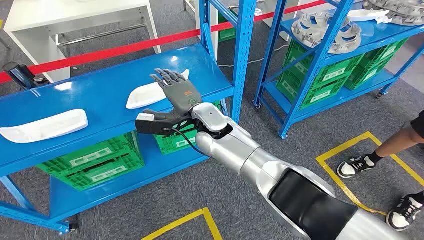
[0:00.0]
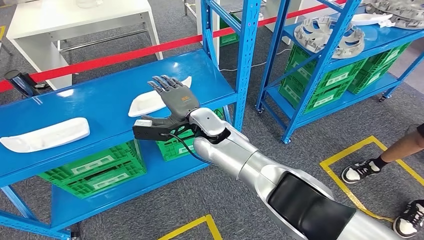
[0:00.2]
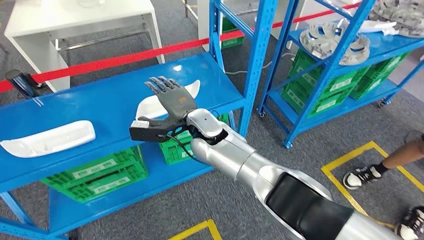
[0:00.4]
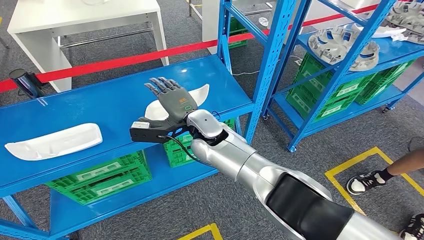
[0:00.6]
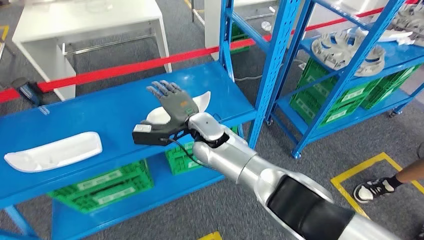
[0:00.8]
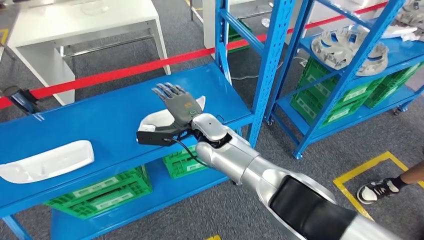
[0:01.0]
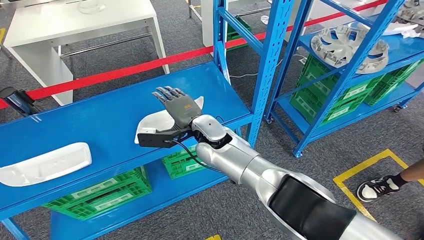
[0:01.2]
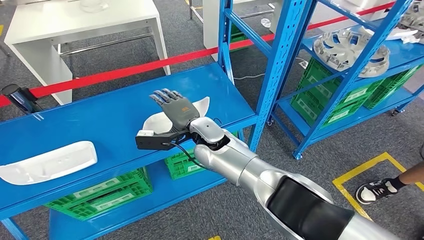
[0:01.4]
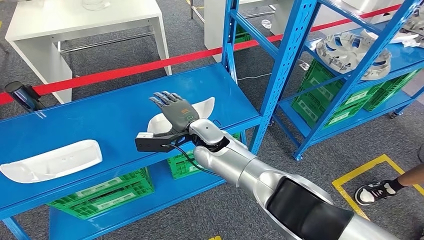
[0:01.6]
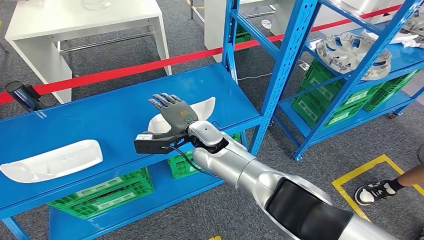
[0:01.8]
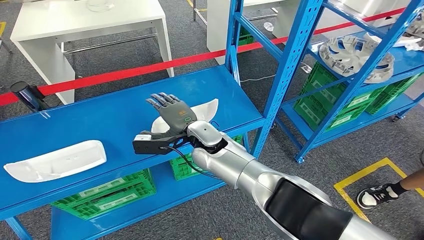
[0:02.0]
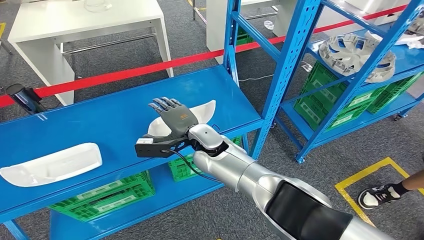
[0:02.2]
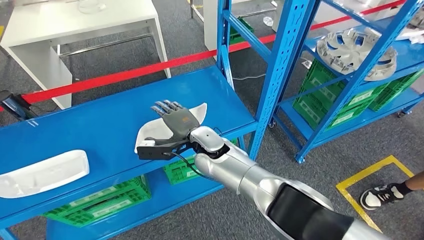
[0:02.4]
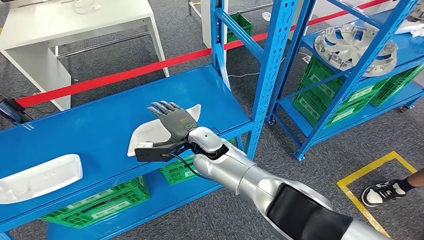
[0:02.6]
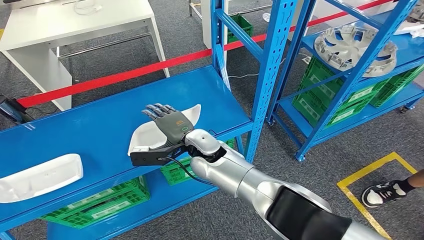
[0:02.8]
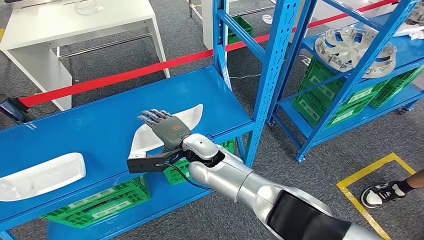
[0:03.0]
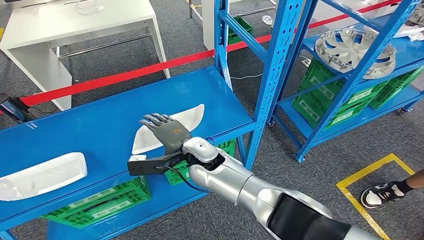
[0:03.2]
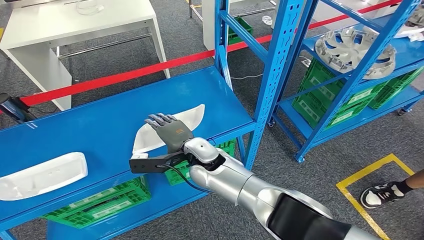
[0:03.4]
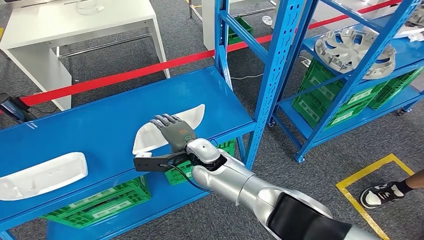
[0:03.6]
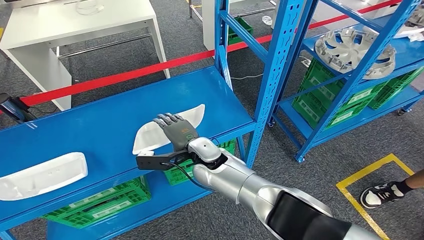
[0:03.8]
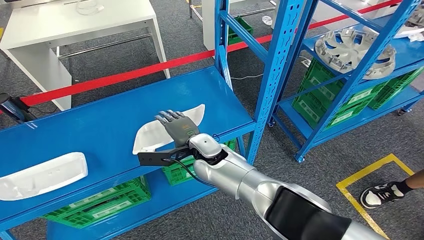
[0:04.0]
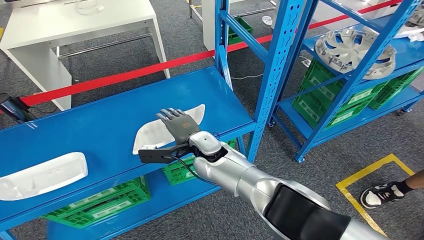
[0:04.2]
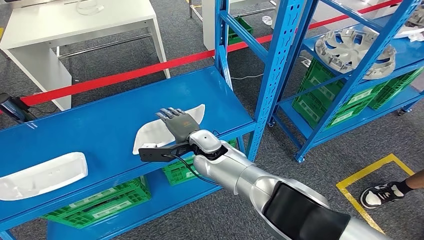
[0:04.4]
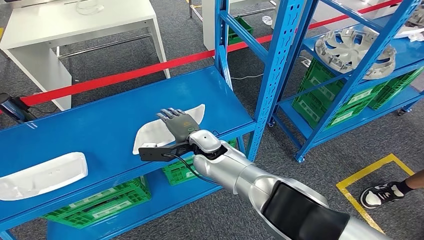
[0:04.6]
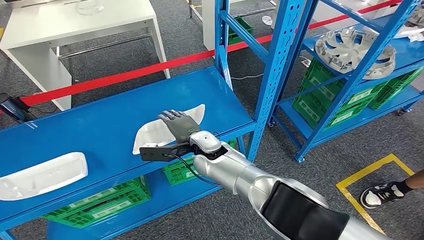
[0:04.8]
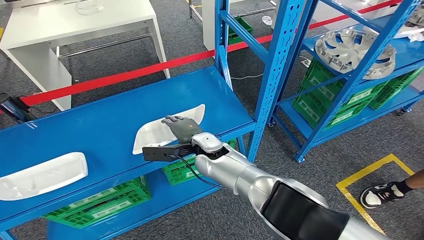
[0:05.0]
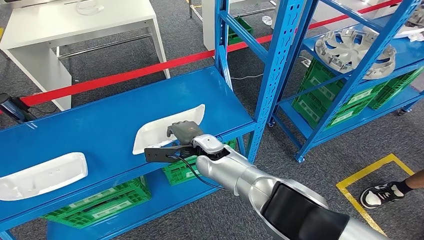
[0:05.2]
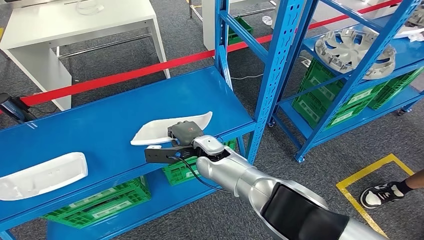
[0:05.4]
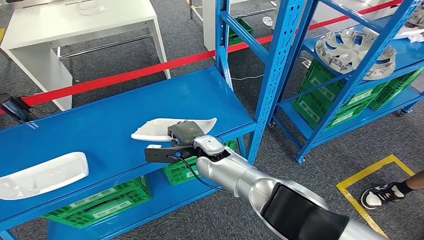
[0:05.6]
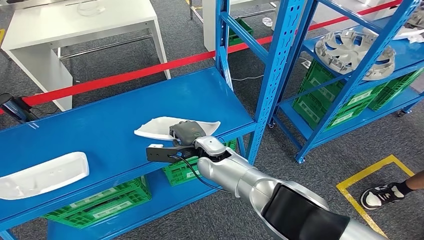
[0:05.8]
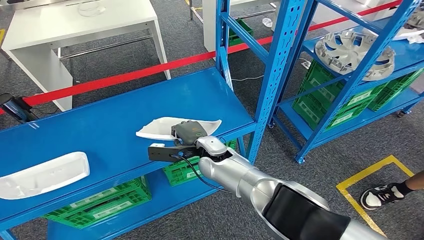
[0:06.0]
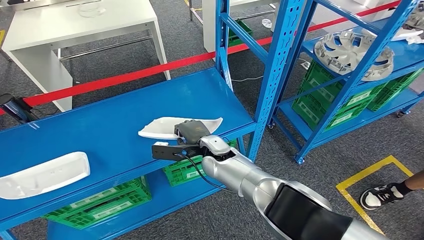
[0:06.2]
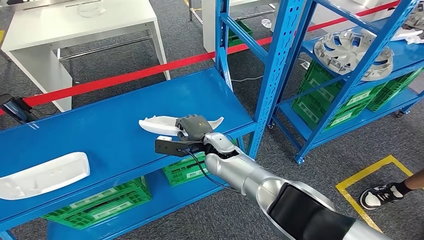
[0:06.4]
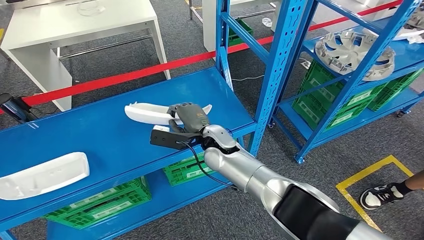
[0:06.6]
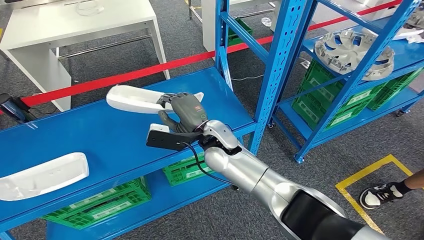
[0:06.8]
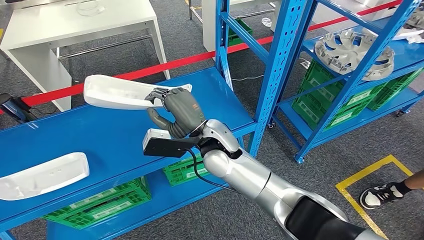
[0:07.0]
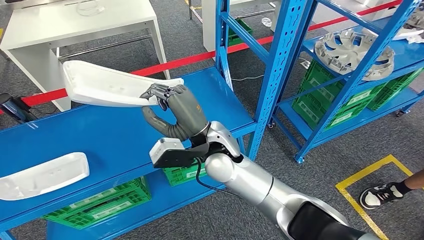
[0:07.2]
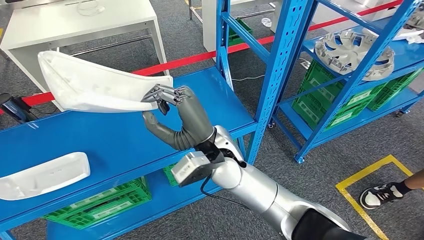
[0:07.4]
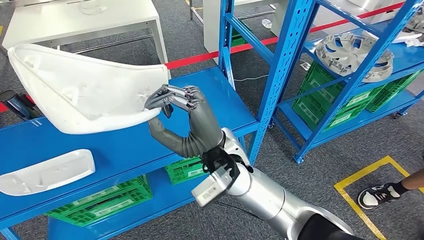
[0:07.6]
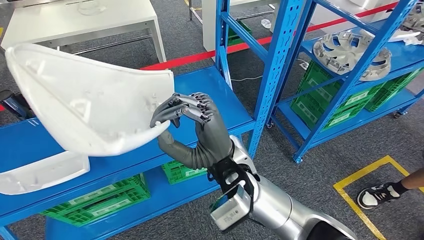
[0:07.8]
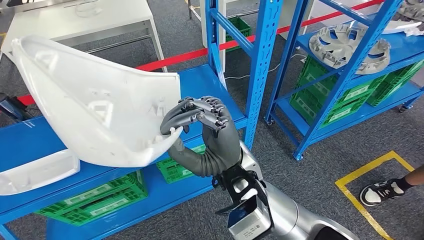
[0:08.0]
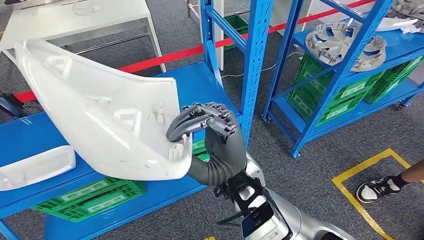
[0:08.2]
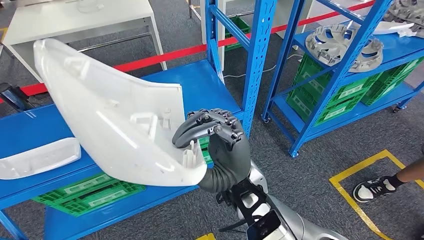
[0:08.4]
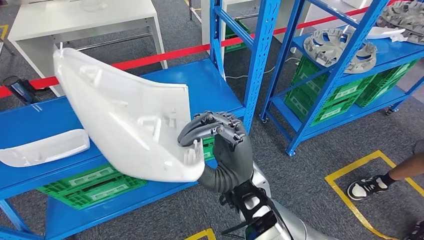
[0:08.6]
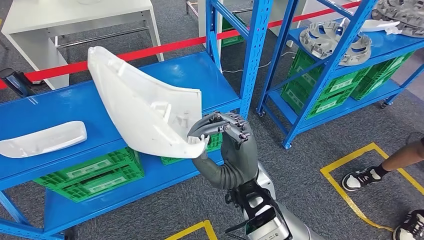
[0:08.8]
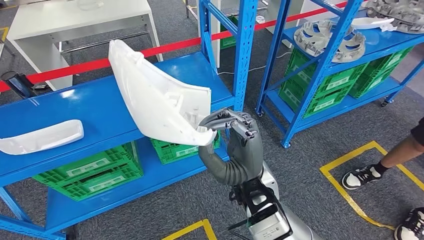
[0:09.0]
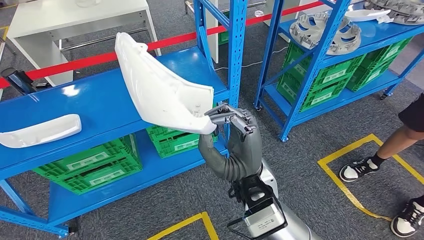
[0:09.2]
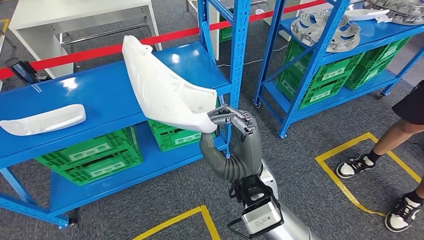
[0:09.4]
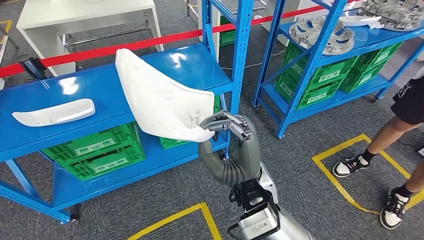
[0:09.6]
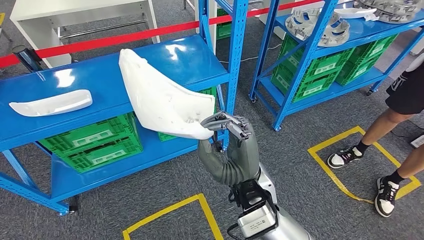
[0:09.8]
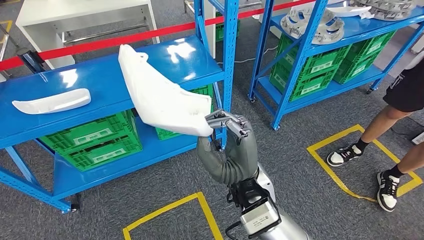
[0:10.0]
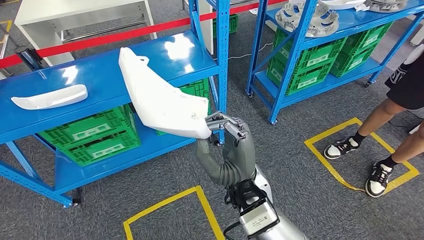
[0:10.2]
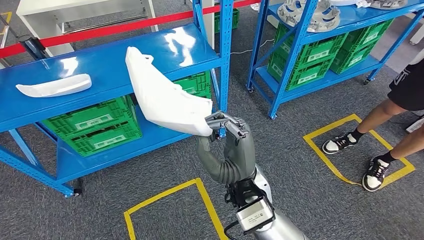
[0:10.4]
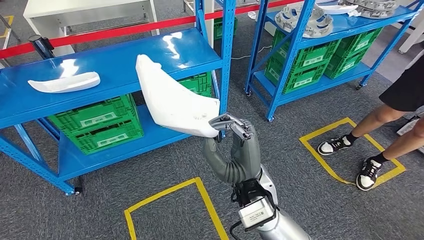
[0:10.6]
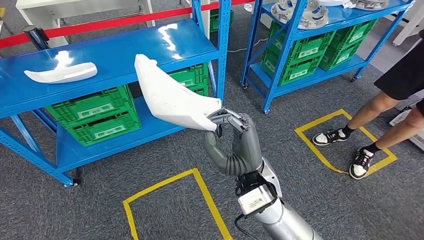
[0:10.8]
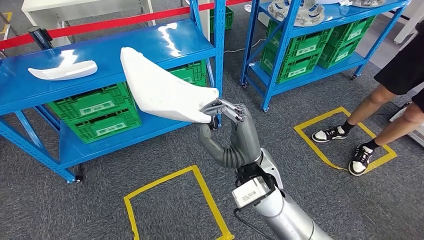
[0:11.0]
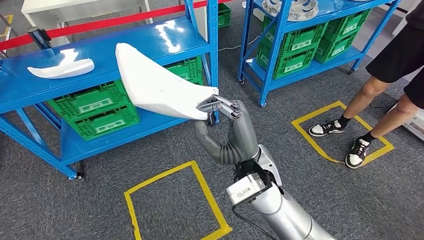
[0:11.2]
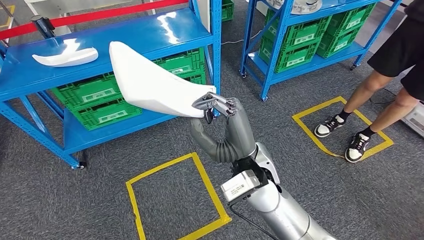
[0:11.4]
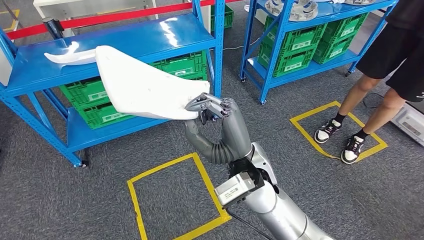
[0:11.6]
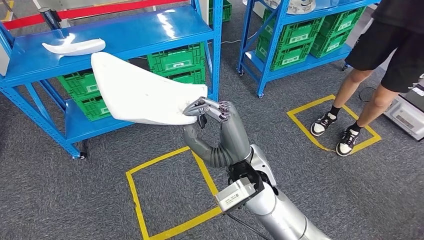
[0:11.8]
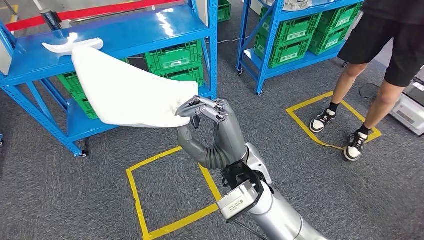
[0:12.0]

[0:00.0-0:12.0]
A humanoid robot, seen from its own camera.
Step, 0:00.0 to 0:07.6: Pick up the small component from the shelf.
0:03.0 to 0:06.0: The hands stay close to where they were, moving slightly.

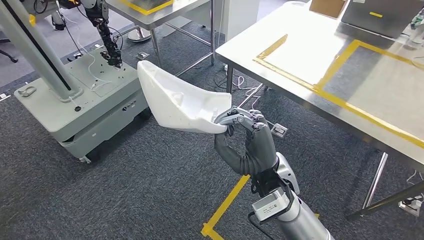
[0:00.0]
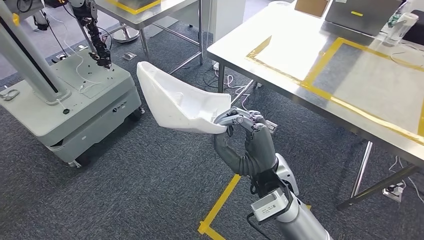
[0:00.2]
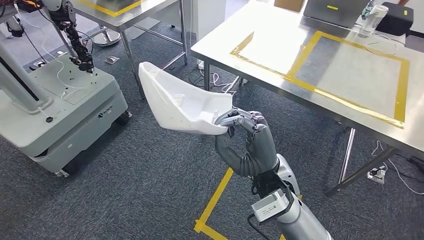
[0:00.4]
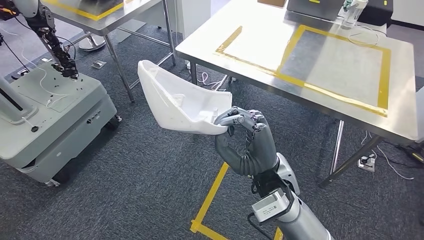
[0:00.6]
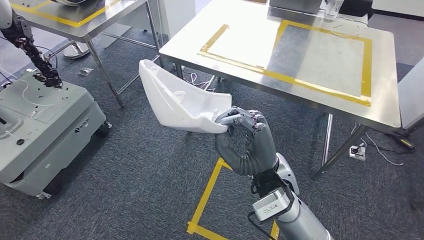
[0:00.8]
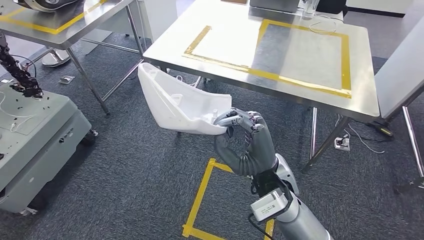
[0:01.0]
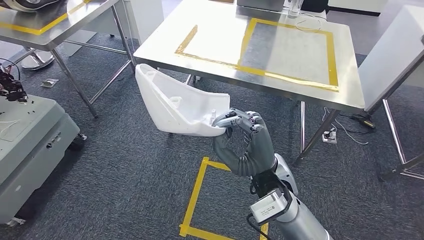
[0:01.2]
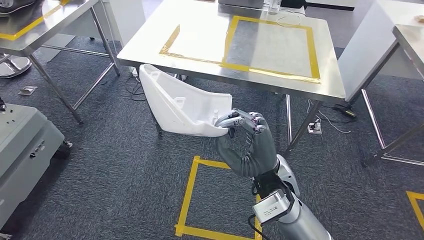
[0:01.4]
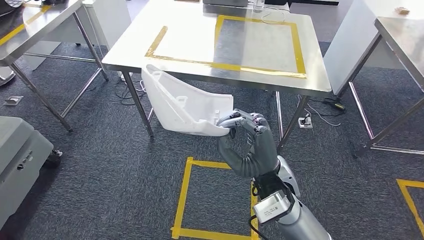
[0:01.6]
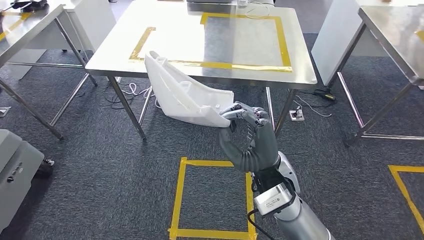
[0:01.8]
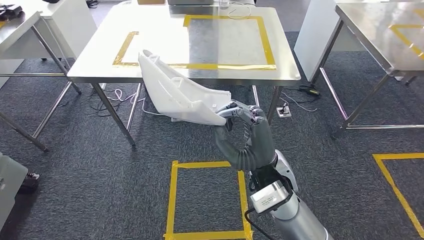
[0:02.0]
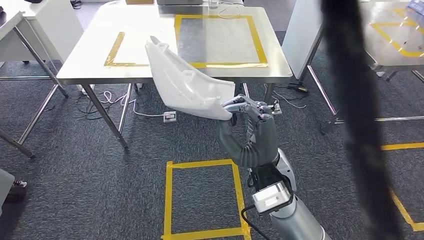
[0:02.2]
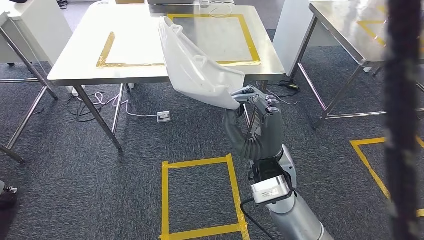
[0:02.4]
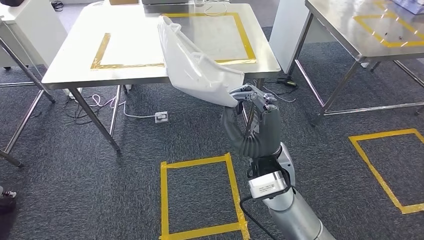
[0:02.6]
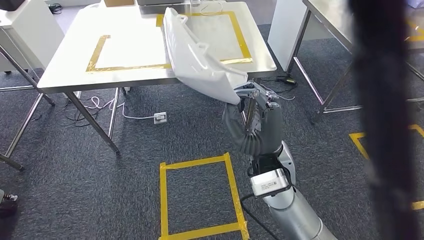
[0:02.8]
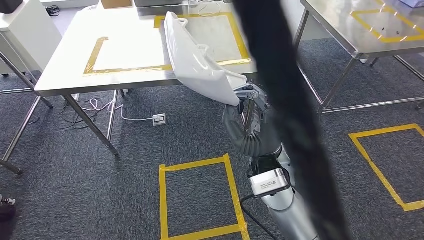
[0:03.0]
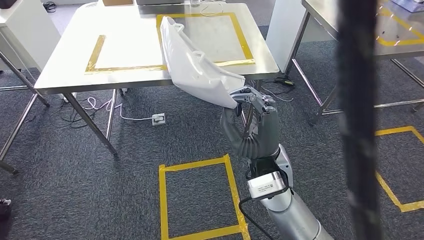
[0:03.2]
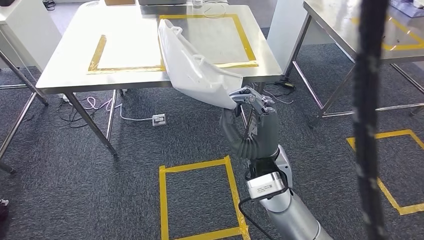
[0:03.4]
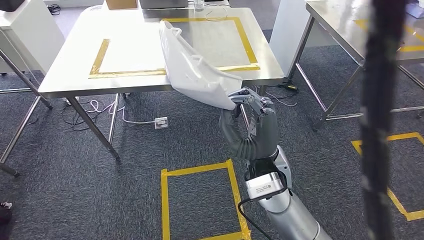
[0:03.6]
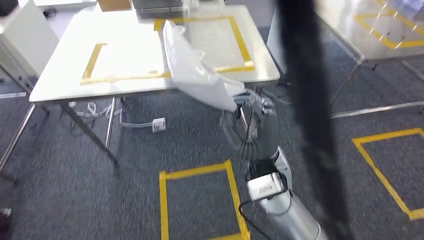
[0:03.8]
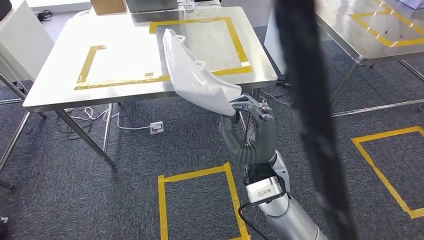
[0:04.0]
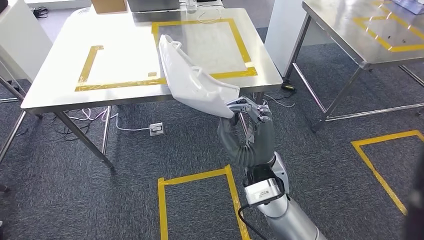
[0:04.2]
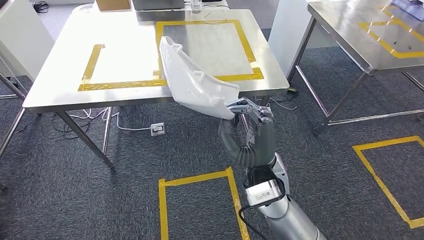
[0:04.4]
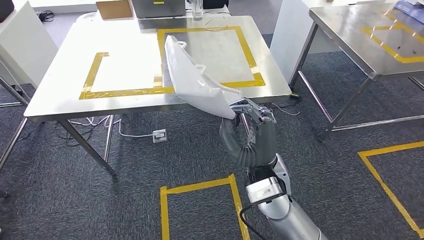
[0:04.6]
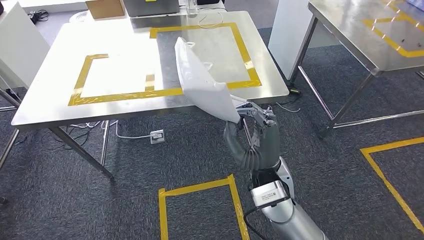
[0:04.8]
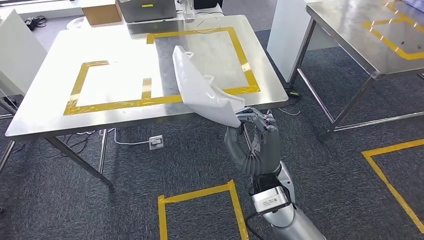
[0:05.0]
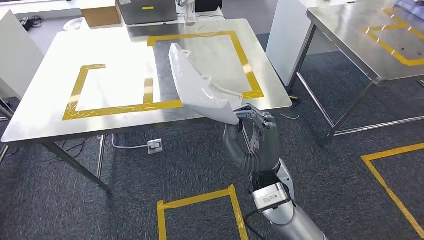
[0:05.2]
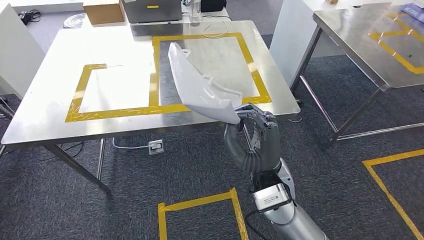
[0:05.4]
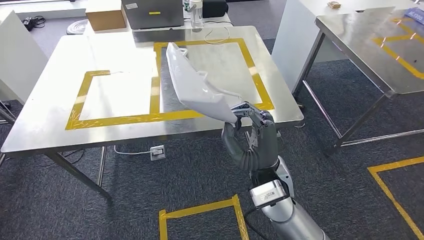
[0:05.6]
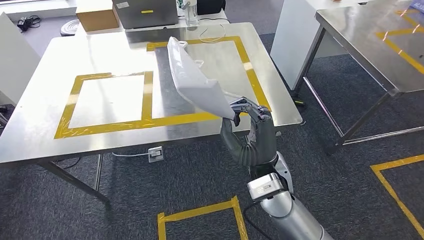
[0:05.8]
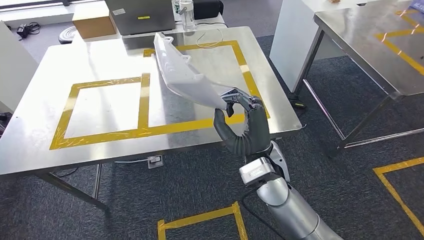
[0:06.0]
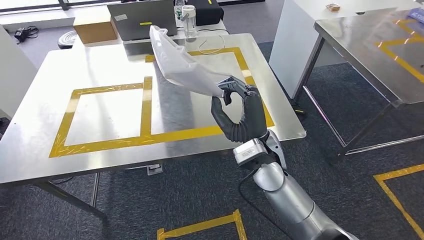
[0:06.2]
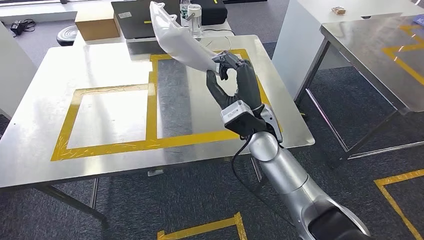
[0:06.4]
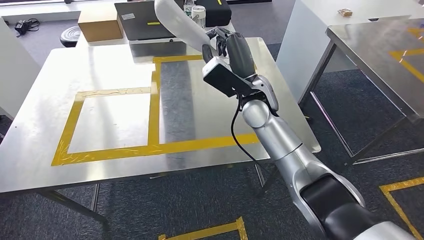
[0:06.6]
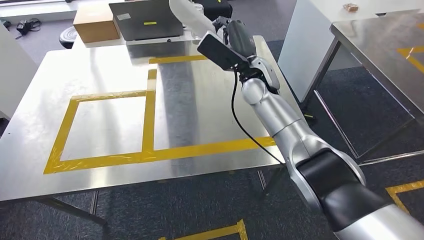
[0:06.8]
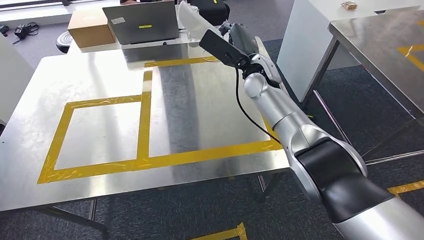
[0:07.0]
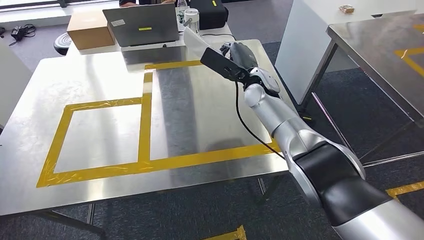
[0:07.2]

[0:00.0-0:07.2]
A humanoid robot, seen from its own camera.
Step, 0:00.0 to 0:06.8: Move the small component to the workbench.
